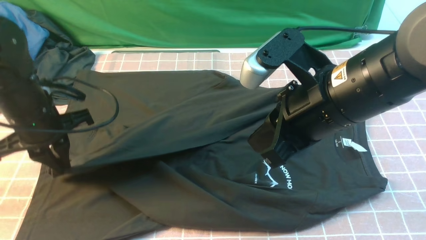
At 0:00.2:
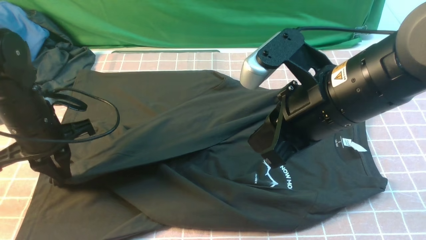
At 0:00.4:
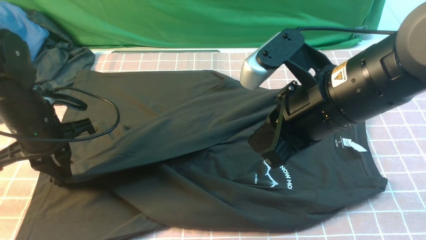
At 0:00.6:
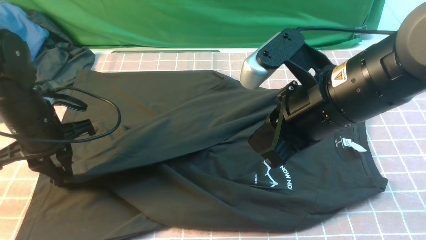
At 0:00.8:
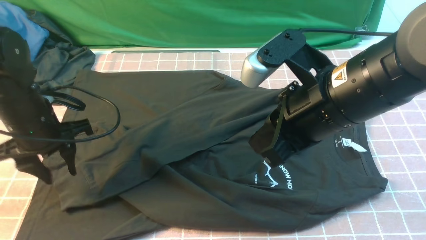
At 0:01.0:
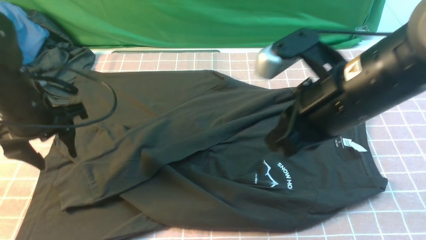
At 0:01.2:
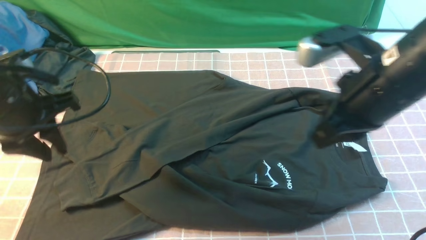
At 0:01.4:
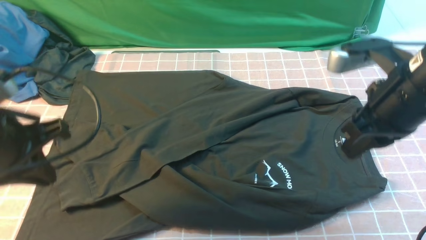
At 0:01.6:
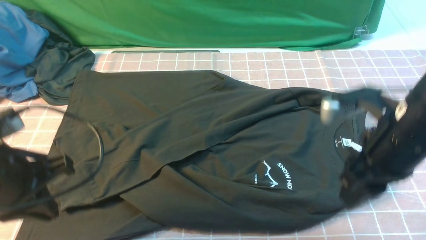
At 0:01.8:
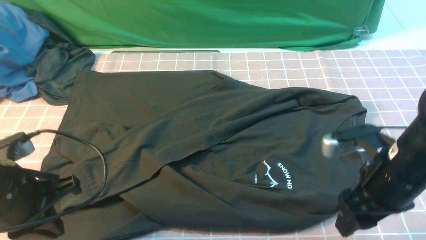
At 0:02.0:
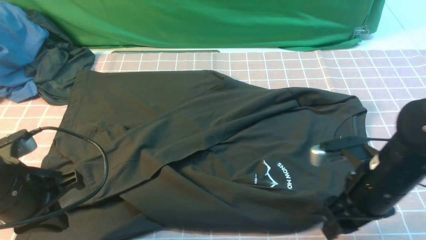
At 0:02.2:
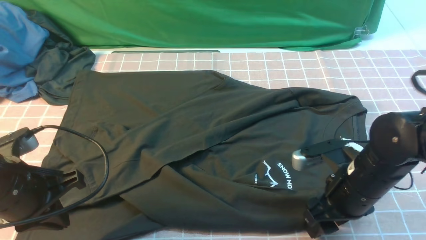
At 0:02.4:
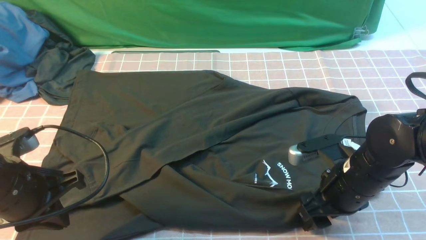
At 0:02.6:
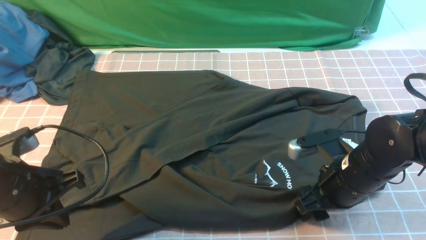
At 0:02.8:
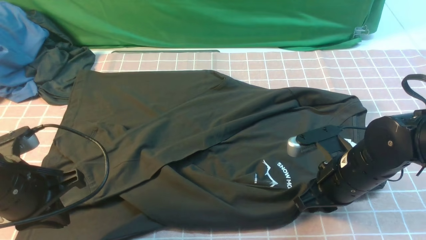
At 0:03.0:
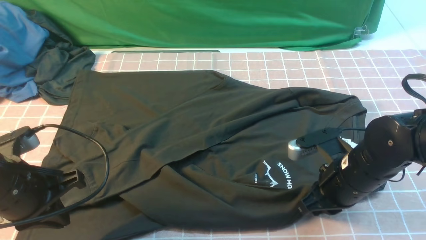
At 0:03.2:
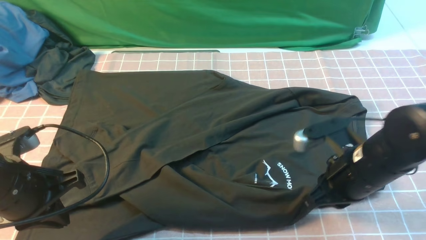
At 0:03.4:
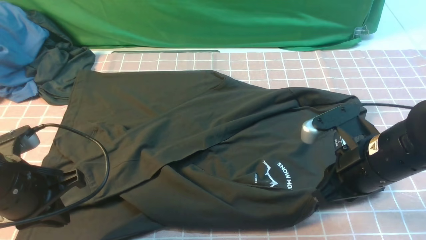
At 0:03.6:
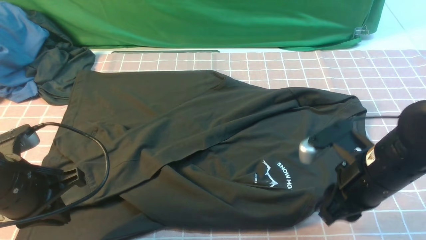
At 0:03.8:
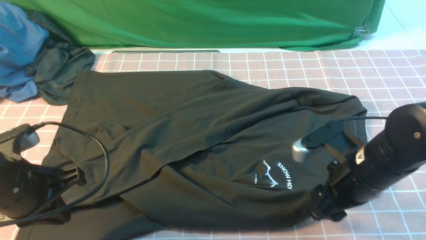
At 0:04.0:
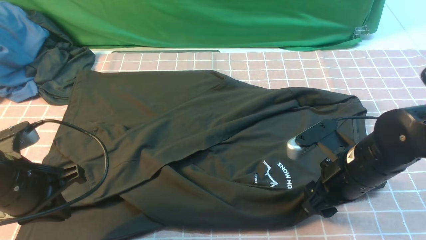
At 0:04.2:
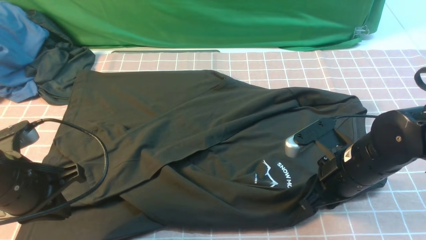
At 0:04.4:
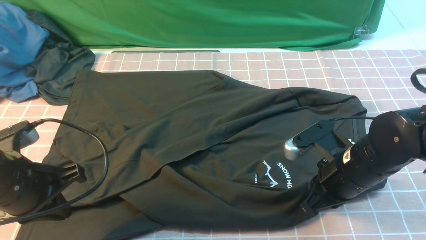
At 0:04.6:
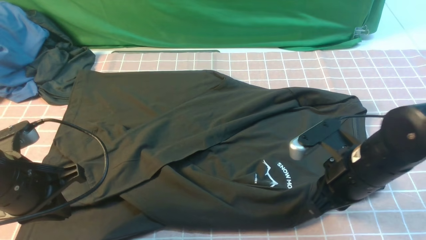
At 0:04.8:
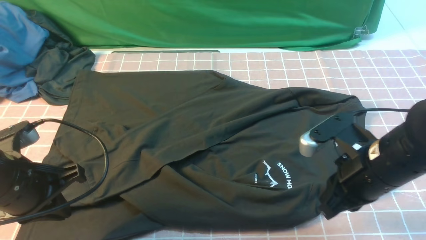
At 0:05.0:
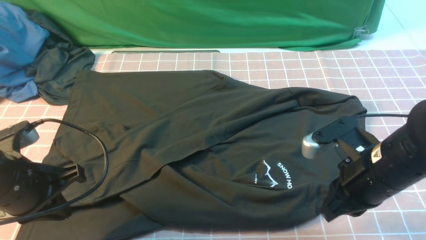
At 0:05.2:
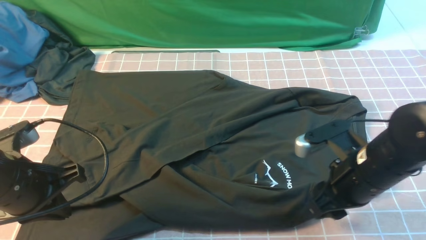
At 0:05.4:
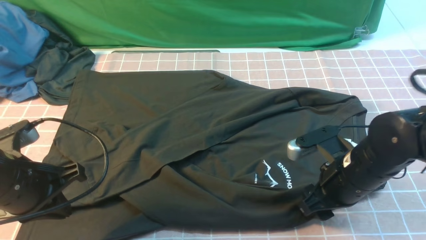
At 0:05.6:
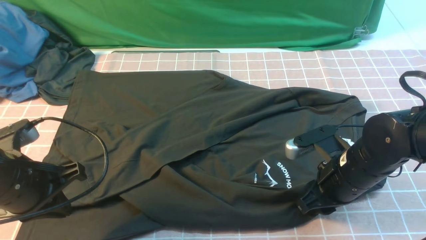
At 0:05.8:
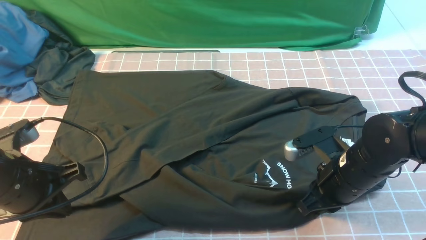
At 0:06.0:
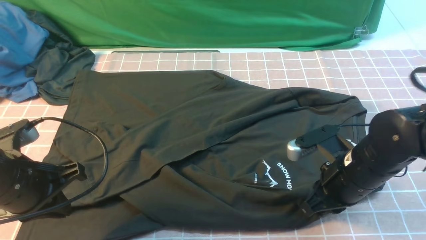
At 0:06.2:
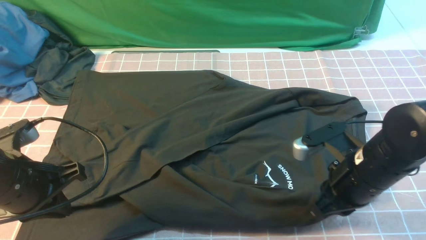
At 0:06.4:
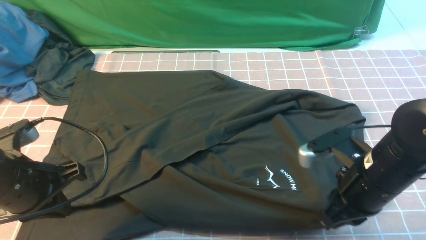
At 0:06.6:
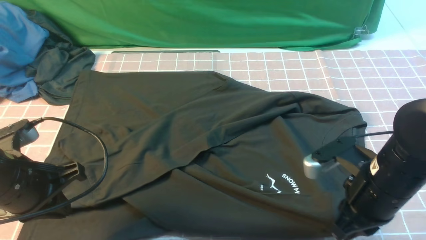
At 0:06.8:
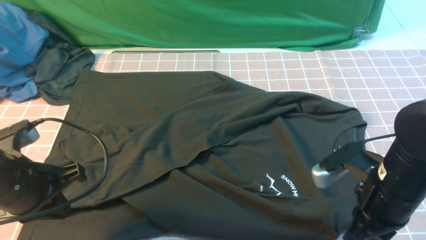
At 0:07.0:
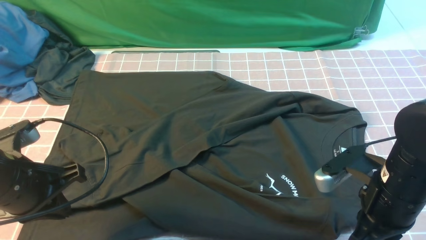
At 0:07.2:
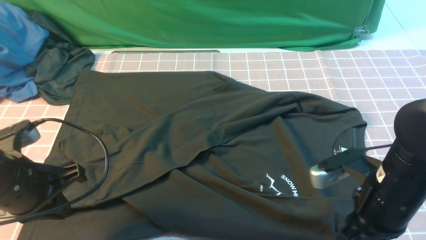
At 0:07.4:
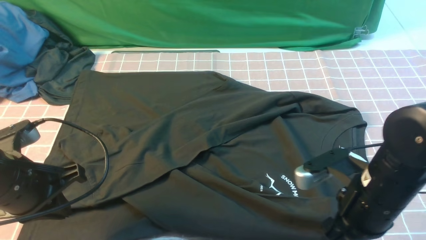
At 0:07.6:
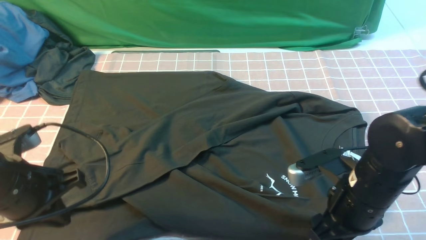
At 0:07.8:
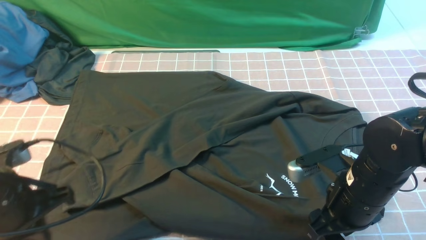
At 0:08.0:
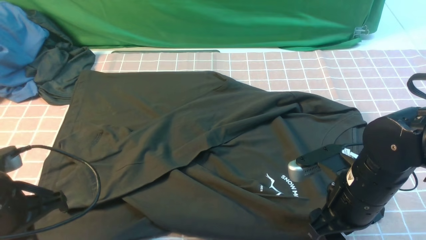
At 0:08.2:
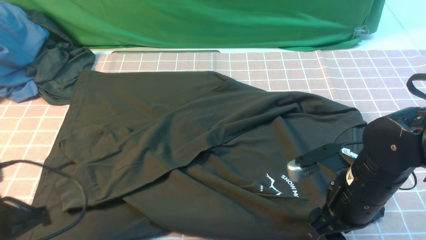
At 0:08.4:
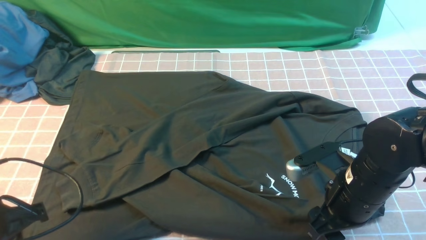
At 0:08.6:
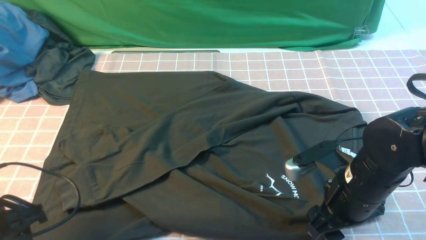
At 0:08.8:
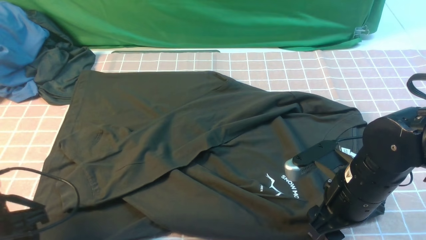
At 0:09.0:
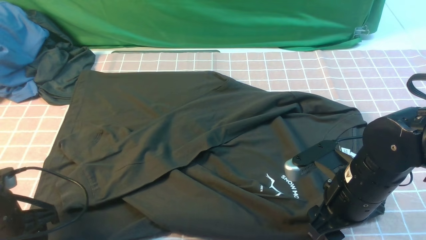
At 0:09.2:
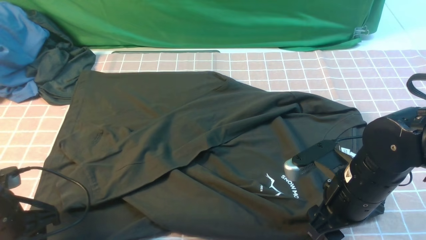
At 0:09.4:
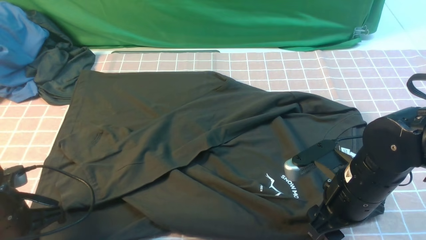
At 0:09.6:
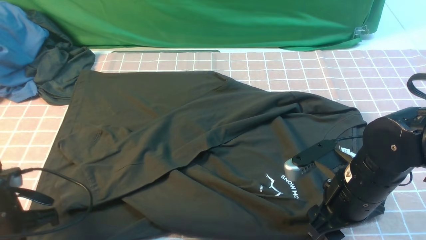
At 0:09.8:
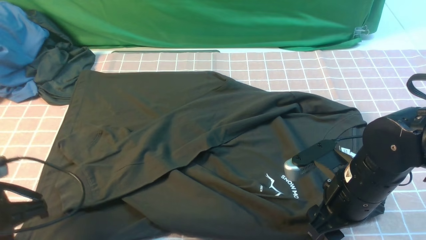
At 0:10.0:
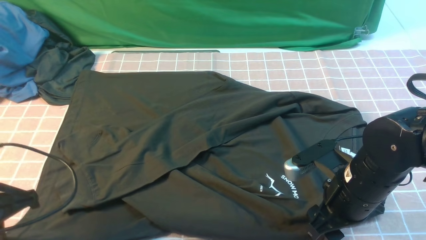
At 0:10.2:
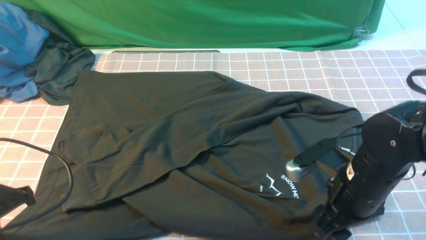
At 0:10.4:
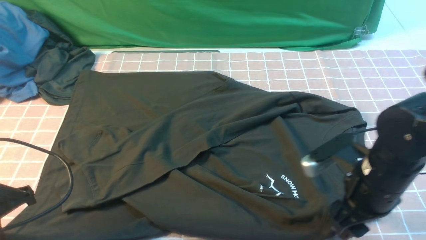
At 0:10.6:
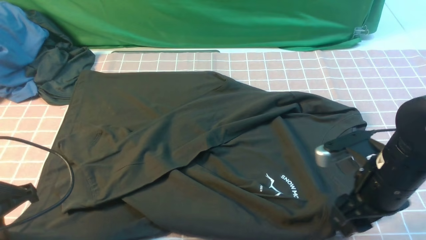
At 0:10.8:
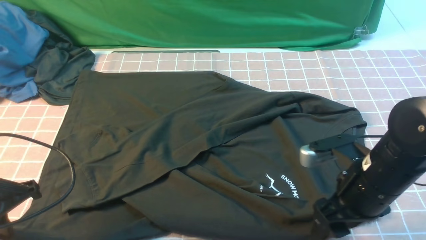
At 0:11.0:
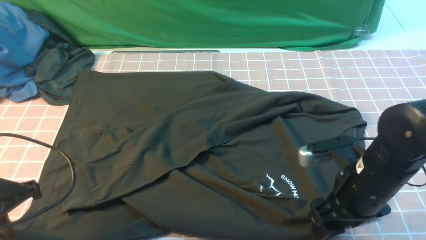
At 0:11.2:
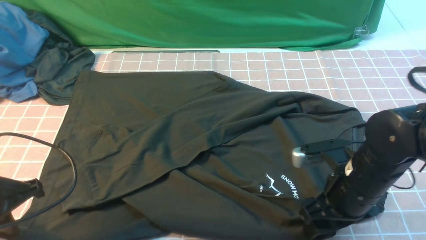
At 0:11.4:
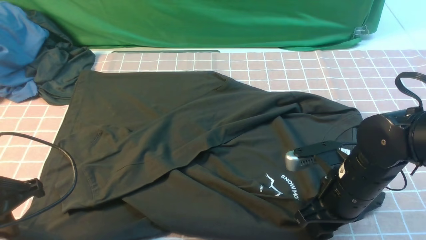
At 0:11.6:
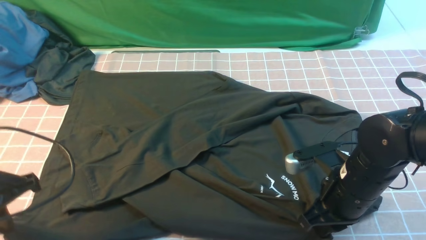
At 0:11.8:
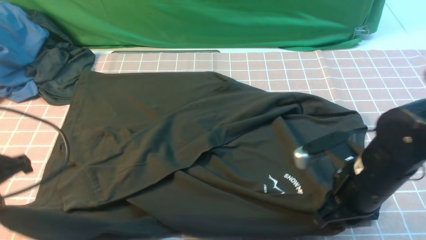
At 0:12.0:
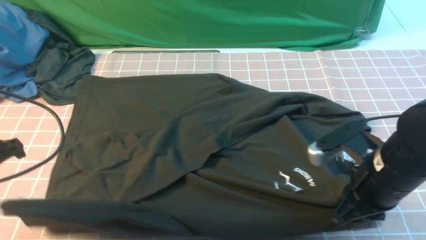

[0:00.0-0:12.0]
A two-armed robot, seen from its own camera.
Step, 0:01.0 to 0:11.6: use both arms simultaneously to clamp the lower edge of the clothing fabric.
0:00.0 to 0:01.6: The left gripper moves backward, some 10 cm, and opens, then closes again. Meanwhile the right gripper moves to the right and downward, approximately 10 cm, and opens up.
0:01.6 to 0:03.0: The right gripper travels downward by about 10 cm, and closes.
0:03.0 to 0:04.4: The right gripper opens and closes again.
0:04.4 to 0:06.0: The right gripper opens, then closes again.
0:06.0 to 0:07.6: The right gripper opens.
0:07.6 to 0:09.0: The left gripper moves downward, roughly 5 cm, and opens its fingers.
0:09.0 to 0:10.4: The left gripper travels upward by some 5 cm, and closes its fingers.
0:10.4 to 0:12.0: The right gripper closes up; the left gripper heads upward, covering roughly 5 cm.

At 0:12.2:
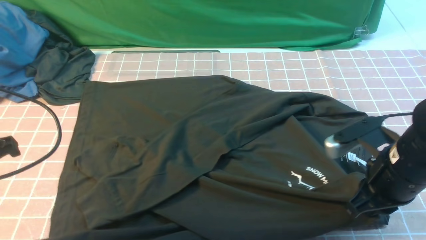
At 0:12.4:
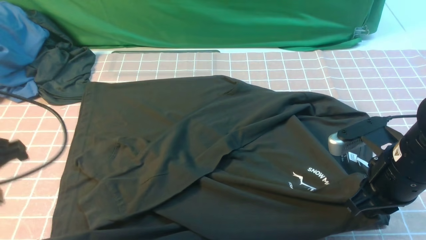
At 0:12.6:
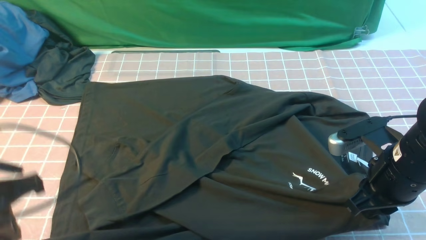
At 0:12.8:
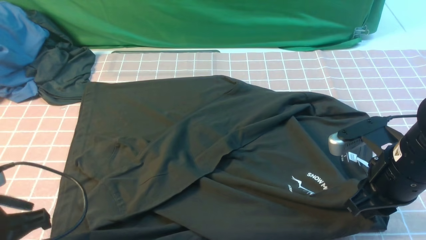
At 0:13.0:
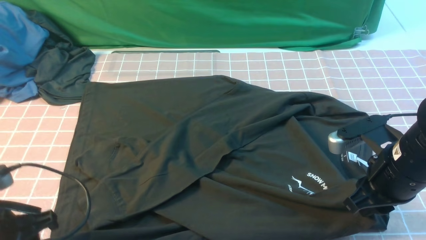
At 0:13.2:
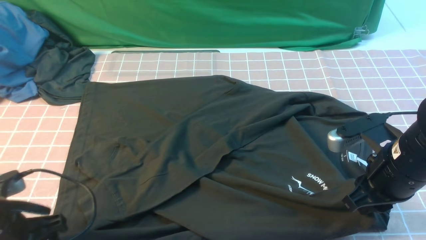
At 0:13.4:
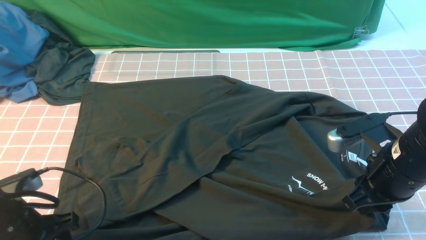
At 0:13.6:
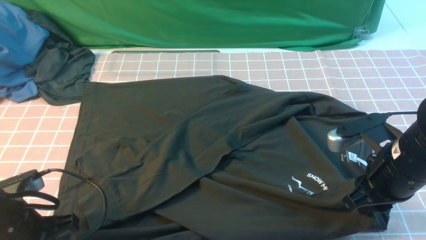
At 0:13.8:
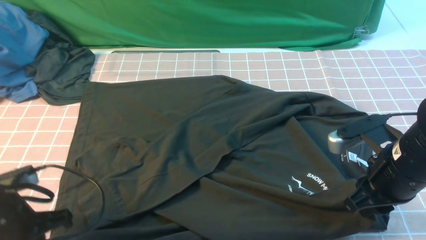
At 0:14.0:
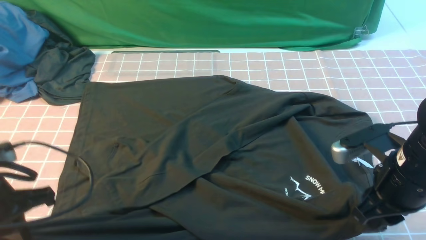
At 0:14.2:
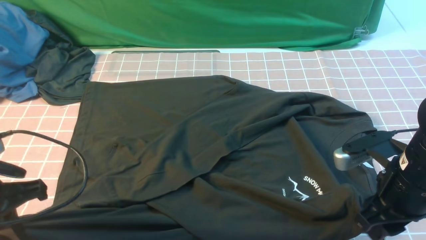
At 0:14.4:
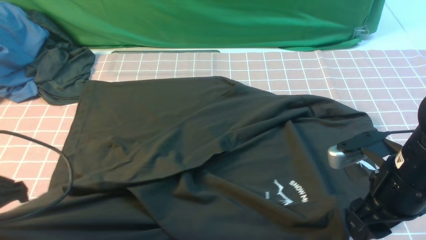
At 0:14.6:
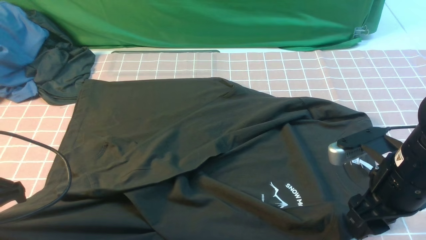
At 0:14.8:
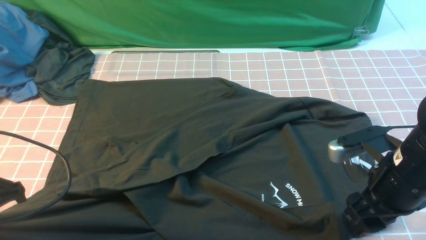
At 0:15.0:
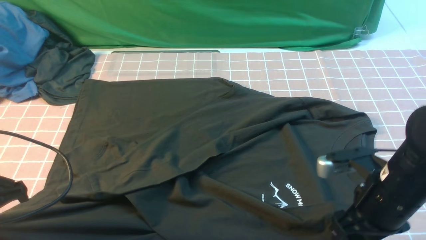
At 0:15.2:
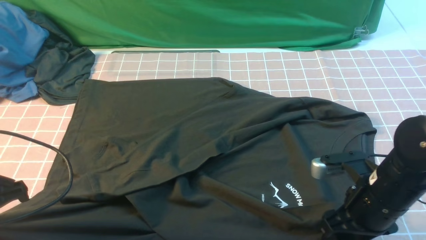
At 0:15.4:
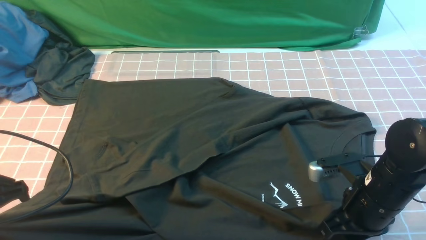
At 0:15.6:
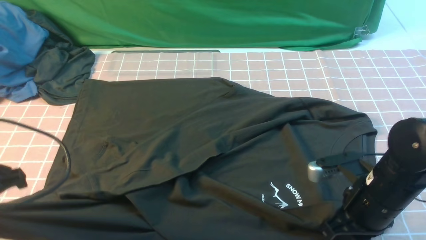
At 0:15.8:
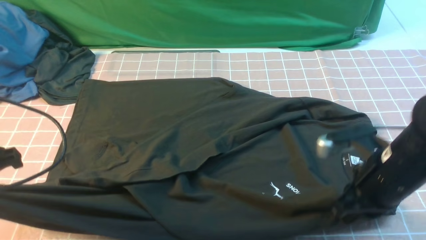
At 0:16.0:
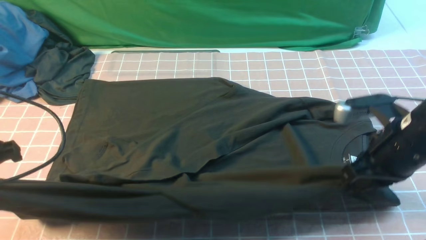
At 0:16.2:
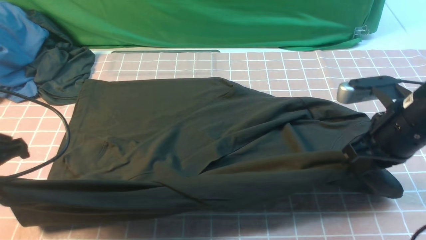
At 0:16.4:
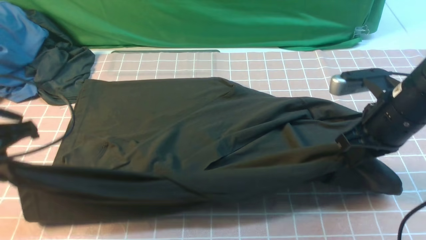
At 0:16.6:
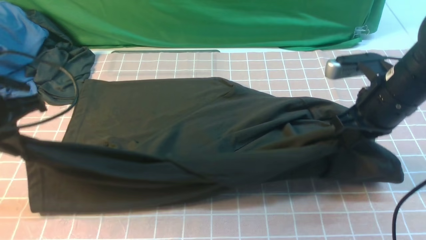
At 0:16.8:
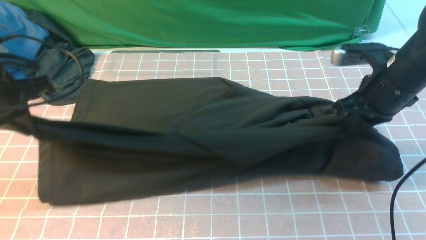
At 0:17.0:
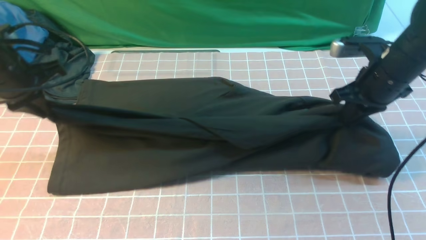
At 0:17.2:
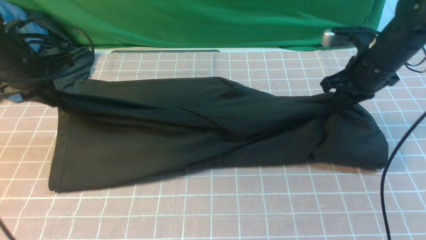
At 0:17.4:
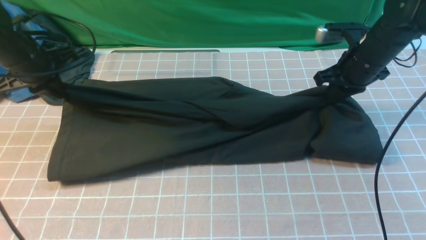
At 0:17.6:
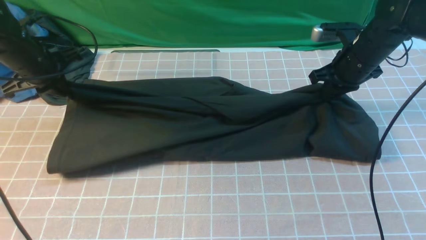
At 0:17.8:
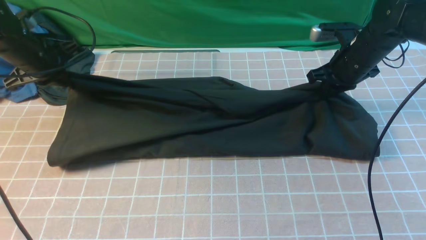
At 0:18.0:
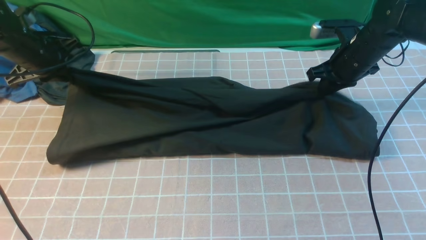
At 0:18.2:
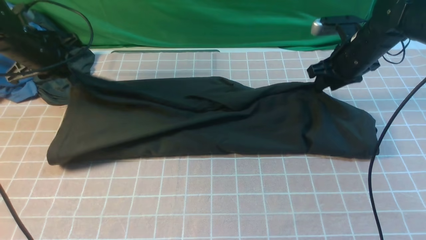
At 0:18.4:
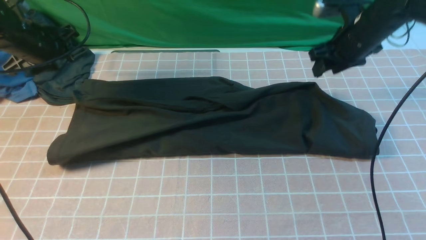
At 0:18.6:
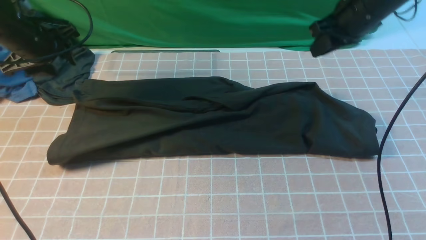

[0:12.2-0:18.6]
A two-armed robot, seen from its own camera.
0:12.2 to 0:13.8: The left gripper travels downward by about 10 cm, and opens and closes again.
0:13.8 to 0:15.4: The right gripper heads downward, covering approximately 5 cm, and opens and closes again, while the left gripper shifts about 5 cm upward.
0:15.4 to 0:17.0: The left gripper heads forward, covering approximately 20 cm. The right gripper goes roughly 20 cm forward and upward, and closes.
0:17.0 to 0:18.6: The left gripper heads forward, covering about 10 cm, and opens. Meanwhile the right gripper moves forward and upward, some 10 cm.
